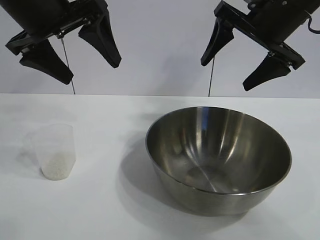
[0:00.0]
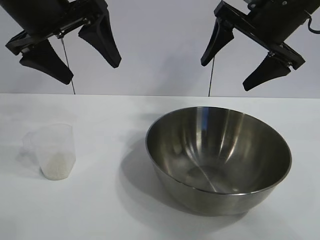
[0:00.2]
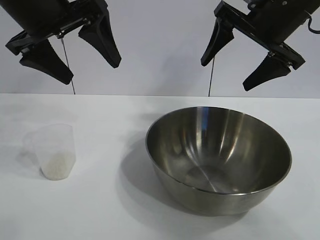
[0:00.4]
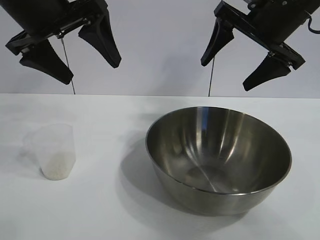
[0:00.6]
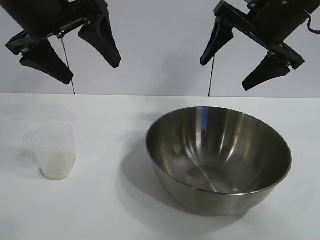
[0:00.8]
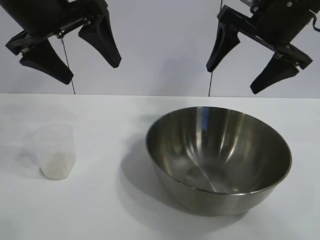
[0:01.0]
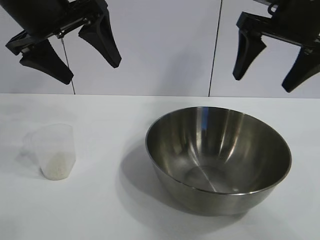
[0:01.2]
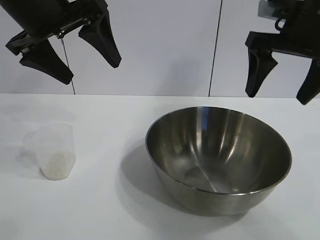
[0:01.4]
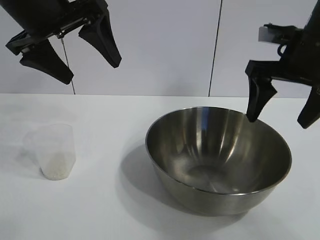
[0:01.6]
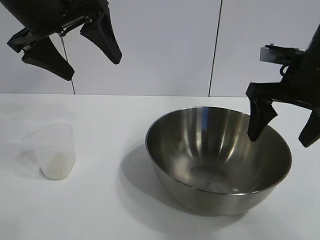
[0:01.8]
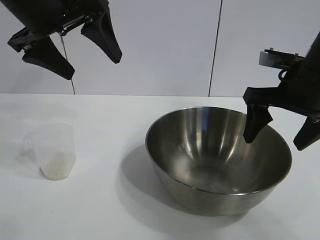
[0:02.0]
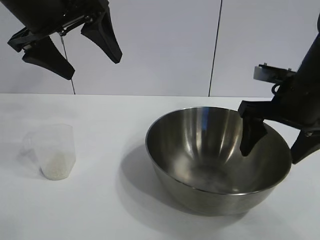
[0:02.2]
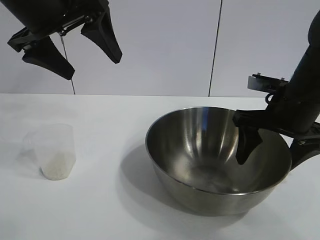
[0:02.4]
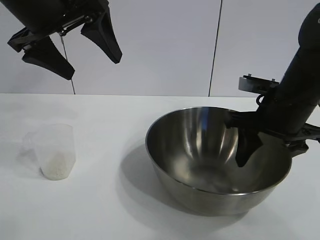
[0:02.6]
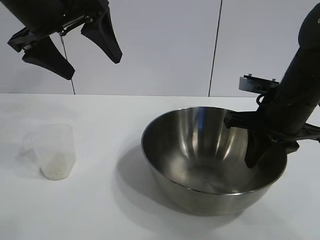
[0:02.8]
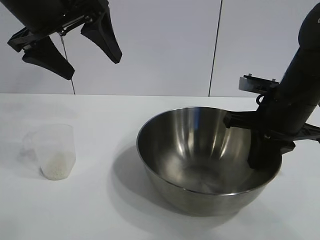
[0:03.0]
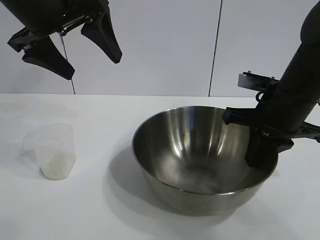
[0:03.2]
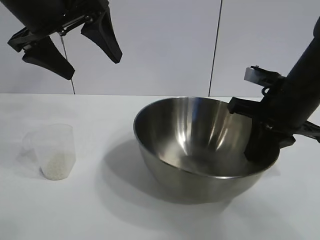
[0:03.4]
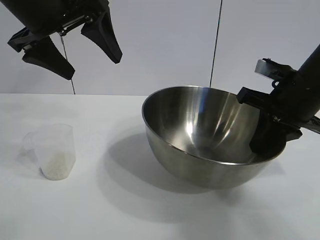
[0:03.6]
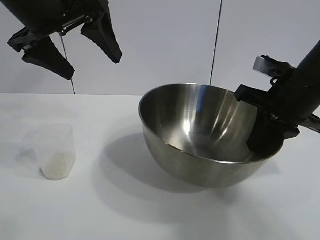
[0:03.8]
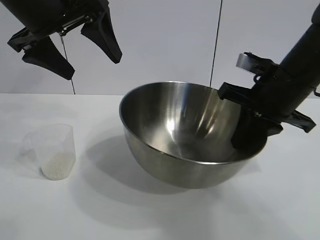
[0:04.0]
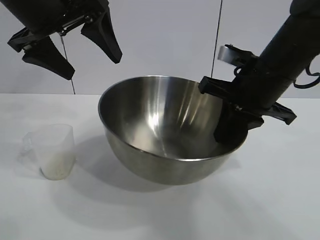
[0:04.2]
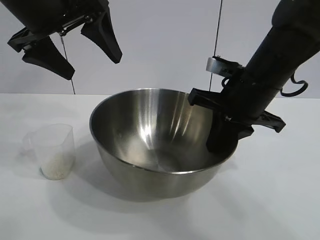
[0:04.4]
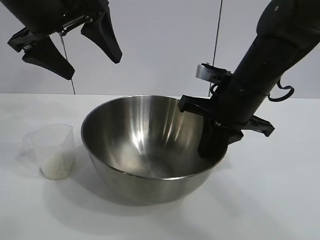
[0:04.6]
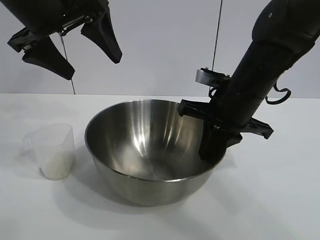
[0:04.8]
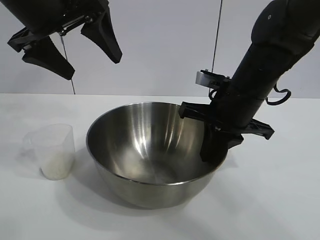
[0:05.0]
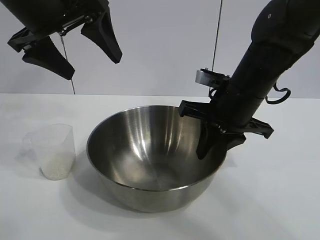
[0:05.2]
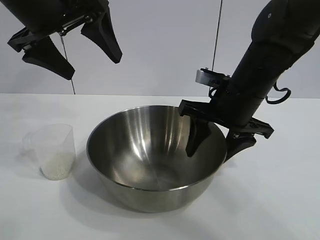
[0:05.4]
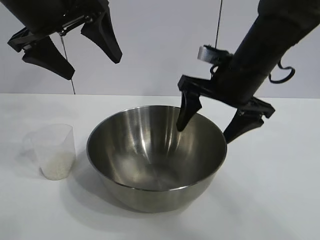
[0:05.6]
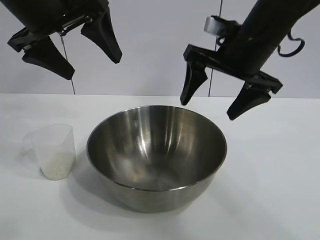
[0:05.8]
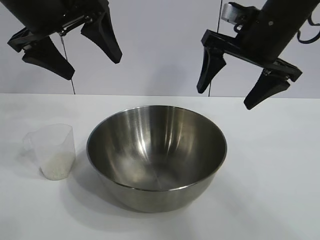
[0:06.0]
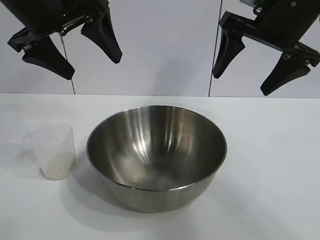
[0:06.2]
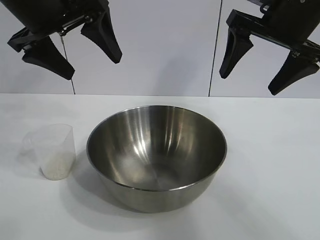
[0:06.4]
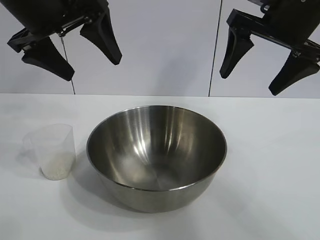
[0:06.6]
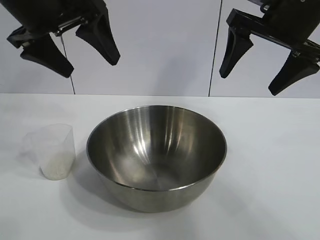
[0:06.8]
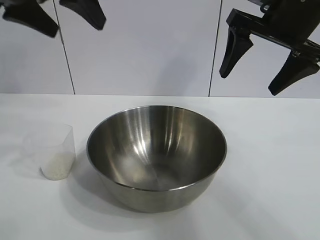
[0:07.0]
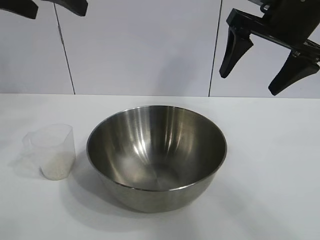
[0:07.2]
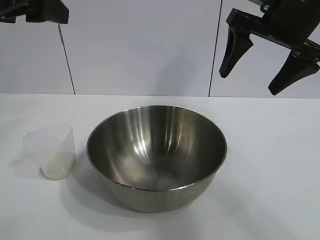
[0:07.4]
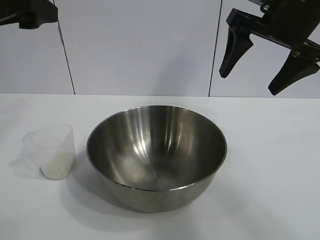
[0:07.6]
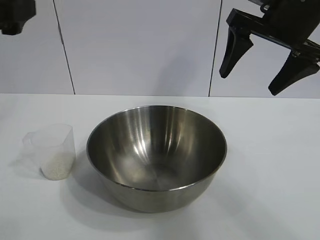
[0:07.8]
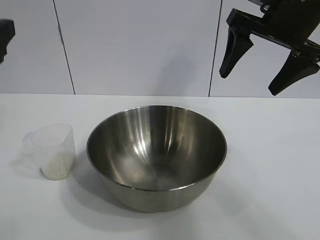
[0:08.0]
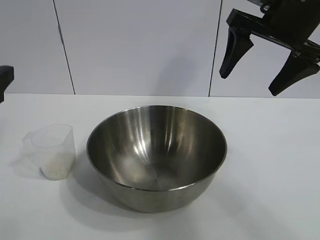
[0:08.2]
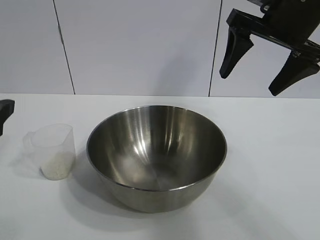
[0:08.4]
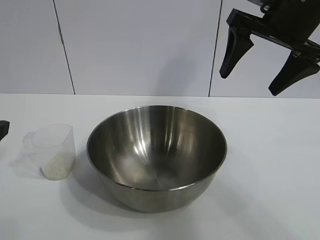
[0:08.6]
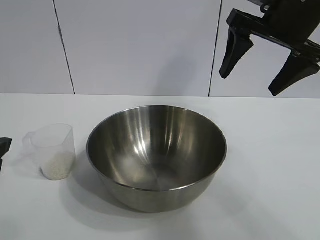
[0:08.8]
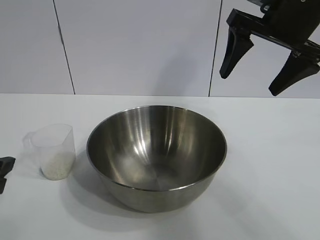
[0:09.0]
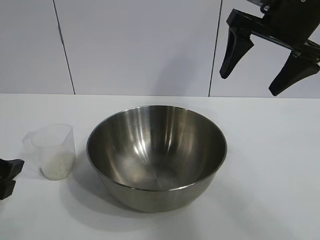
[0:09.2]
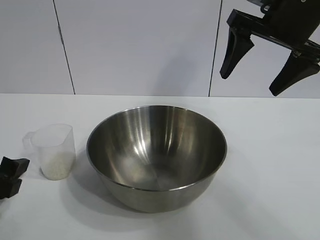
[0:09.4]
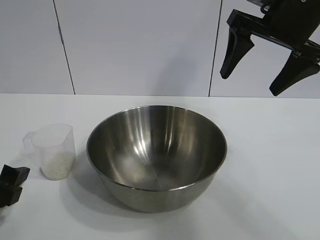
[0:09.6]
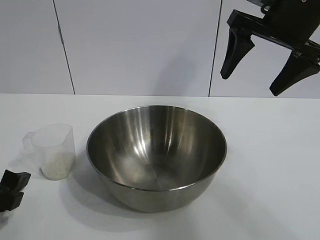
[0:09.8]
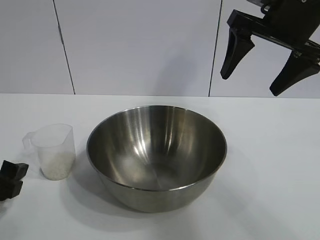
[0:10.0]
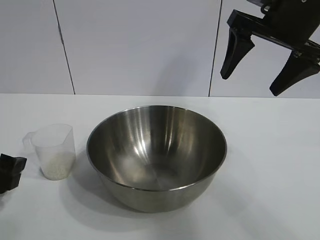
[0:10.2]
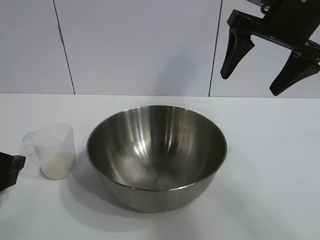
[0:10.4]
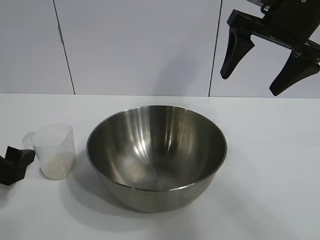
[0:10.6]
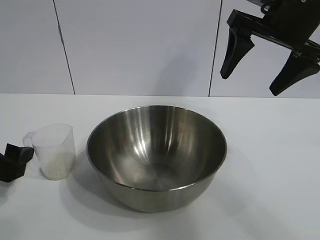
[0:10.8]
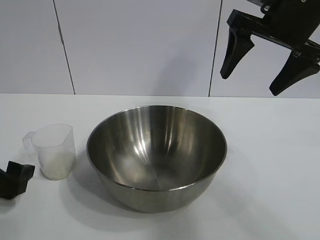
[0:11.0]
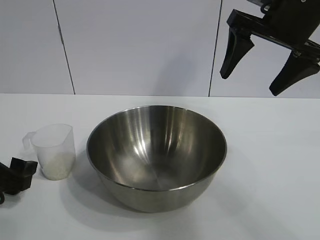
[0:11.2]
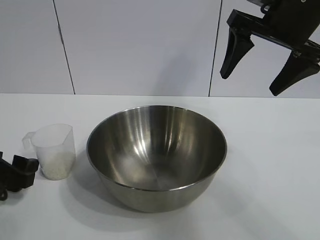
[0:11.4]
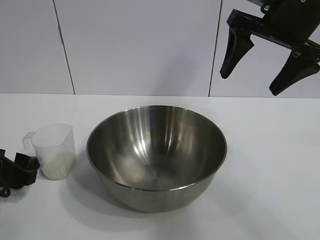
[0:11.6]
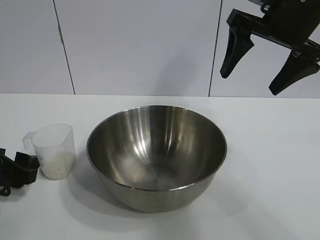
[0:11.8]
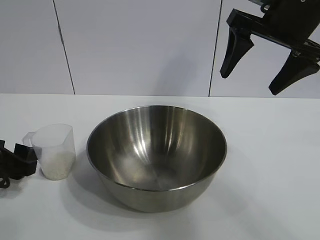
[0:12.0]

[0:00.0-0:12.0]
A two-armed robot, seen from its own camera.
Task of the whole recording: the right gripper grasp the rice container and place it in the center of the table, the left gripper grasp the rice scoop and pour the rice into the rice container.
Step, 0:01.0 to 0:05.4: Move the bowl in the center of view with right gripper.

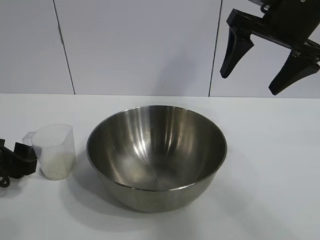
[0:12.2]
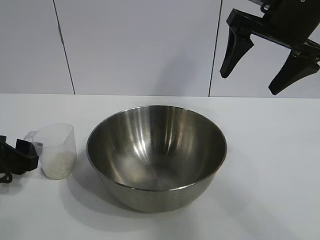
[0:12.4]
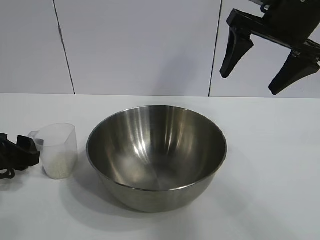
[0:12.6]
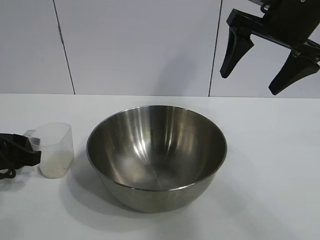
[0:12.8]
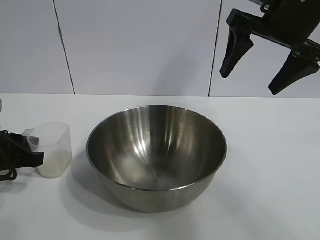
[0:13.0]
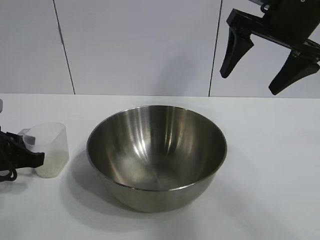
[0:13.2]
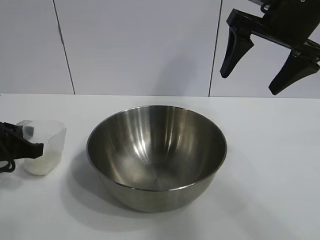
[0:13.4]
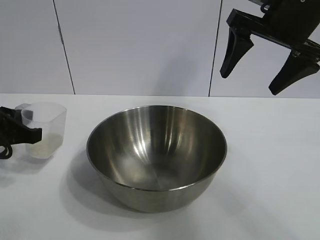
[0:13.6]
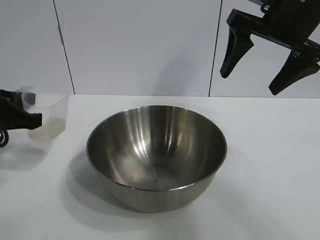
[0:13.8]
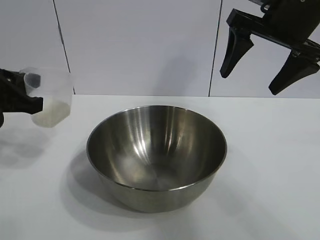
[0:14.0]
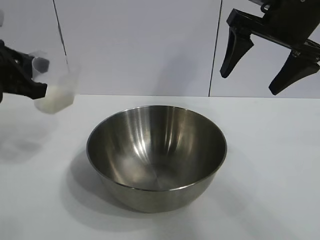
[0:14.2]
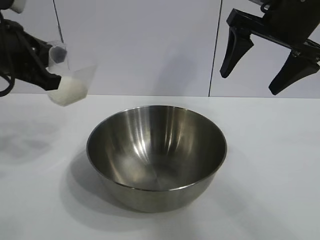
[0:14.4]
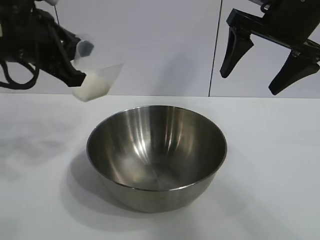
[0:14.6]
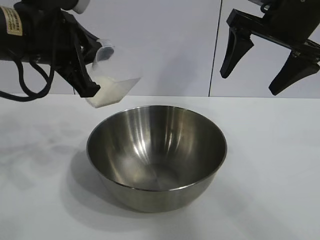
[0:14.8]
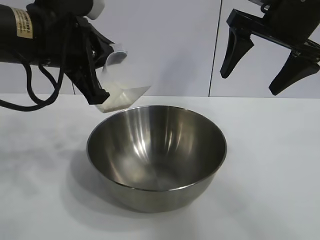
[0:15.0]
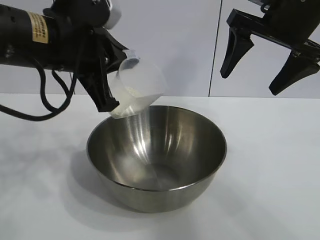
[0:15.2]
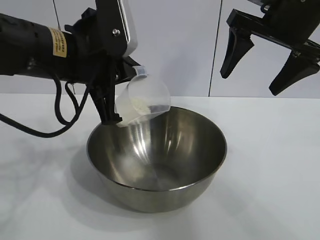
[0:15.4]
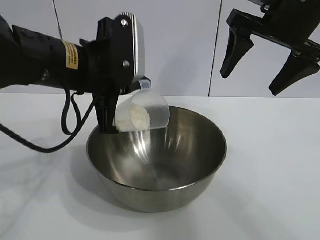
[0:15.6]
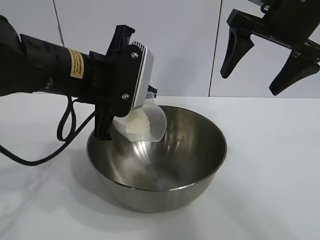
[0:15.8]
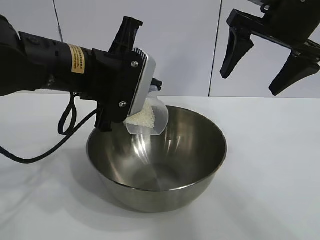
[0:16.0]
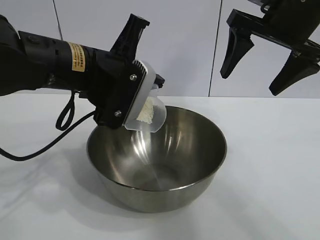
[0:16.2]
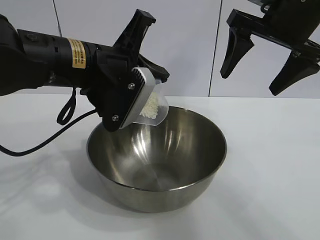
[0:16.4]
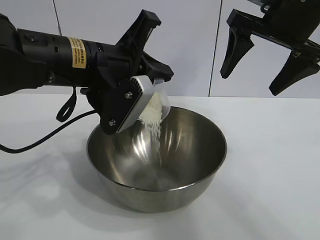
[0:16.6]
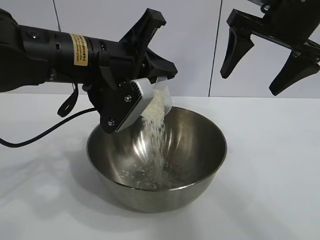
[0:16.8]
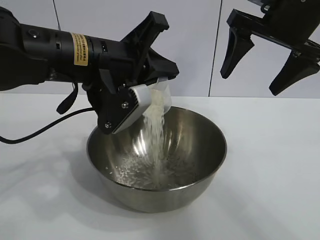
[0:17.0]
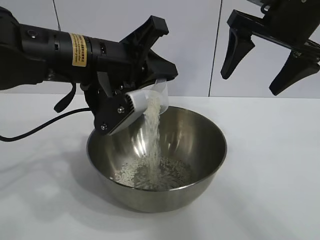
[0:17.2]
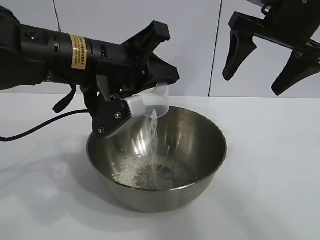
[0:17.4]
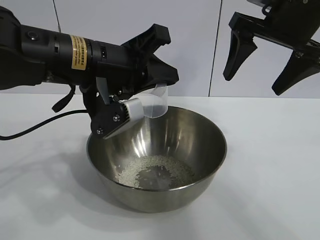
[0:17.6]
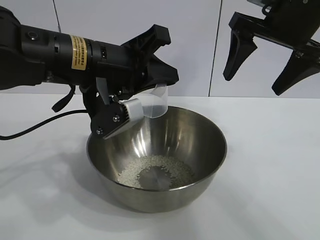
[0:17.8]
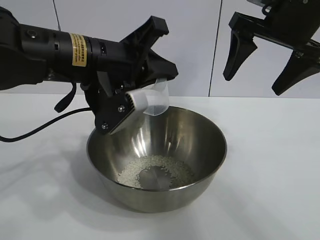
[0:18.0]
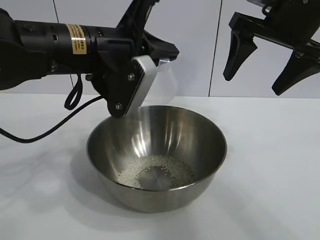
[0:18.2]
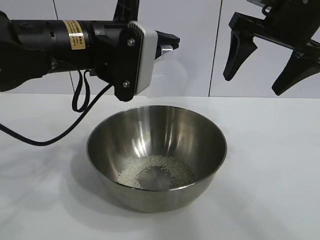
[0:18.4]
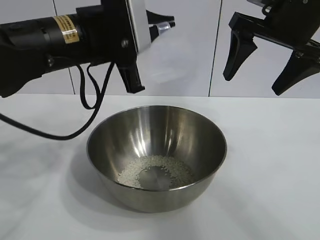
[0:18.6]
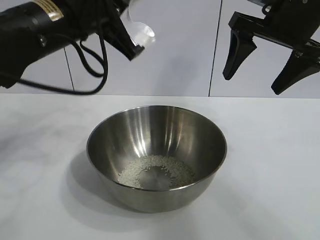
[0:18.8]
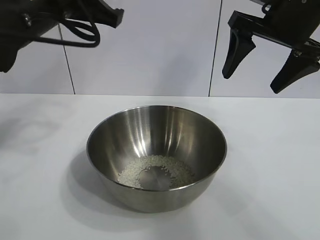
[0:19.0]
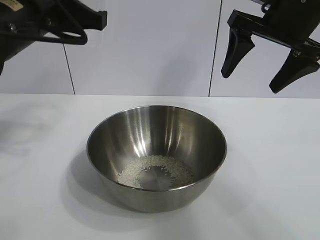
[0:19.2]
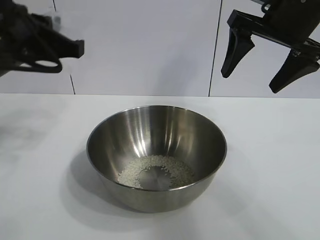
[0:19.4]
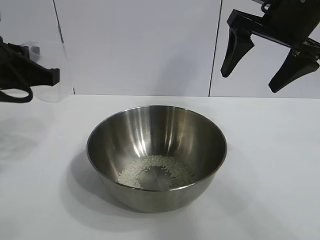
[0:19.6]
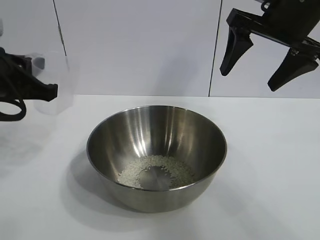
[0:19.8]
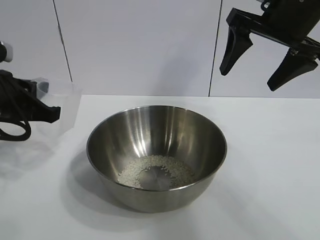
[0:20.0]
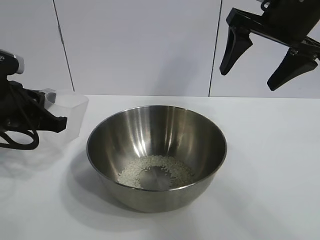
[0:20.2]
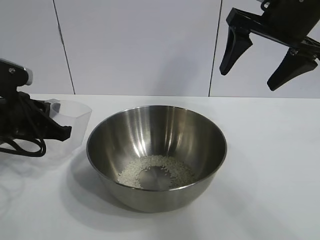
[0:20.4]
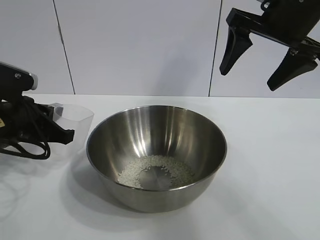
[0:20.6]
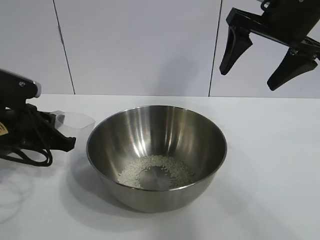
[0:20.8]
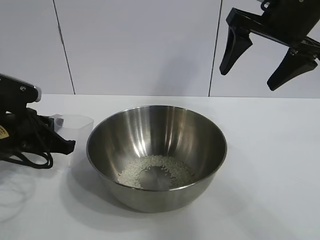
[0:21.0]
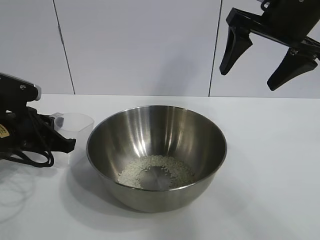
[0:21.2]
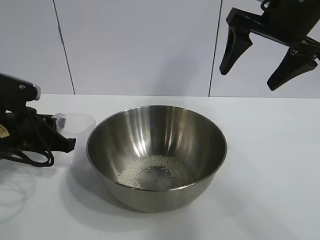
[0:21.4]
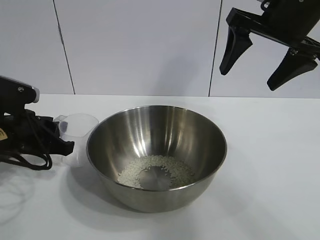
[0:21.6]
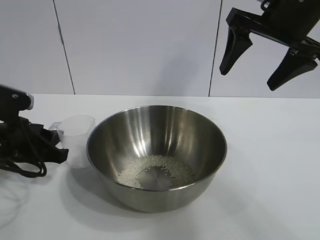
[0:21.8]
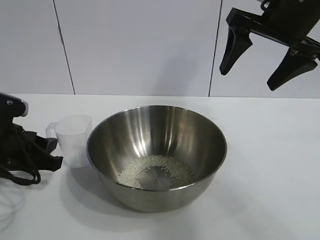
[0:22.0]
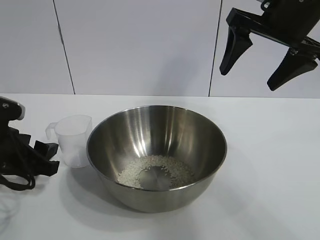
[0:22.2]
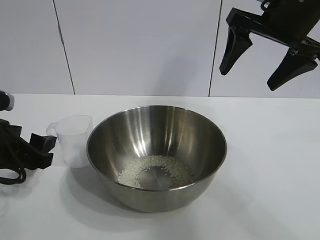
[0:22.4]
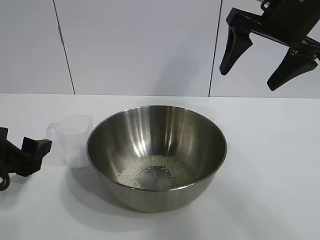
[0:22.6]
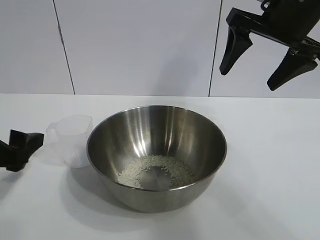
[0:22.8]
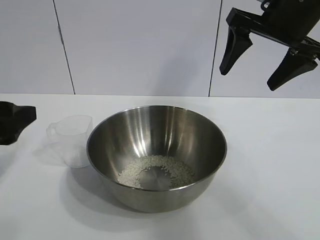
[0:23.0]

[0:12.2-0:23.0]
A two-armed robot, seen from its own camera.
Task of the whole recording: the right gripper grasp the rice container and place it in the center of the table, the left gripper grasp the rice scoop and pour the rice into the rice container.
Step, 0:13.4 to 0:17.6: Pour the rice from the cup into the bowl with the left gripper.
Step, 0:18.0 to 0:21.6: Place the cup on the table with the left gripper.
